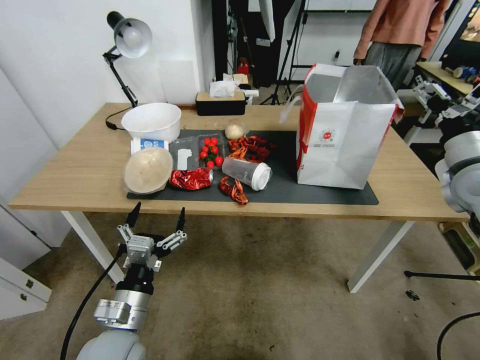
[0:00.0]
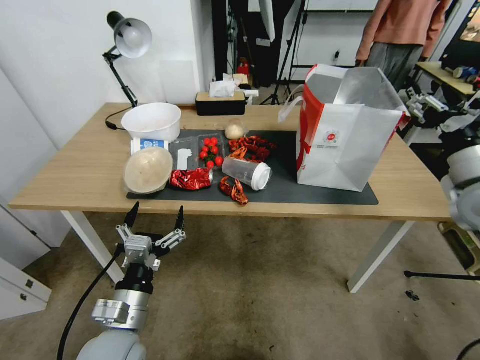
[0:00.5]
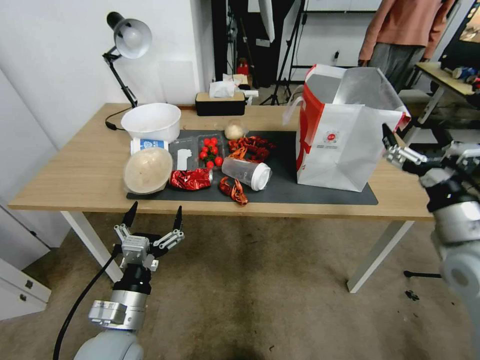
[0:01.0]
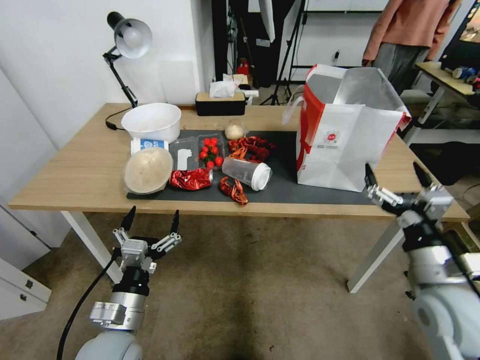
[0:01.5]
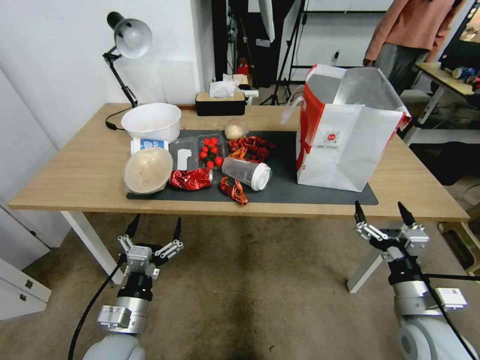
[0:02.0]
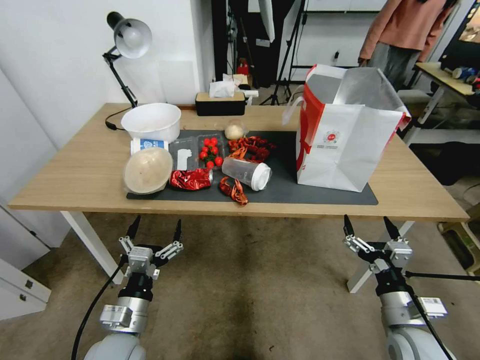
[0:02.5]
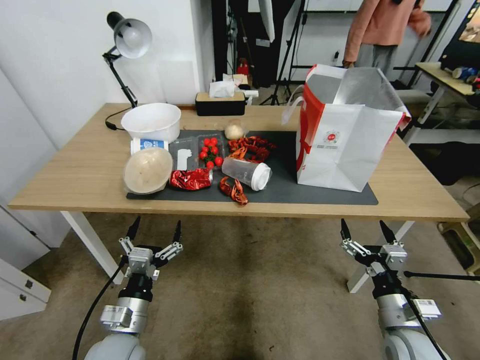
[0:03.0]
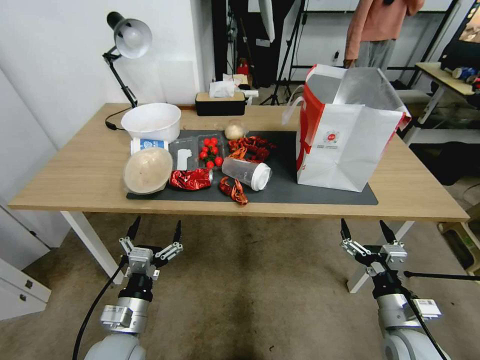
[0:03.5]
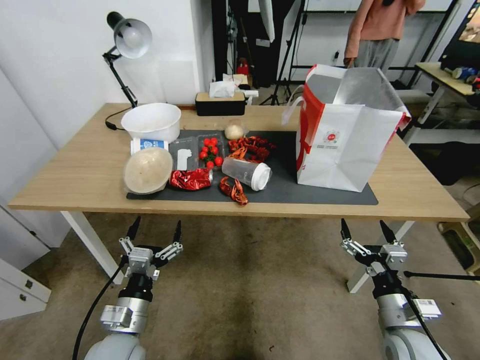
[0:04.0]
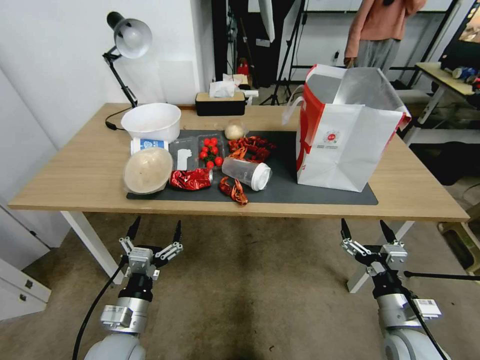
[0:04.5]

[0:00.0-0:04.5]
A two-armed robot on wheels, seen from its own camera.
Task of the whole recording: Pick up the food delivery bag from the floor and place it on the table.
0:00.0 to 0:02.0: The right gripper shifts about 30 cm downward, backward and to the left.
0:02.0 to 0:04.5: There are only small adjustments of the grippers.

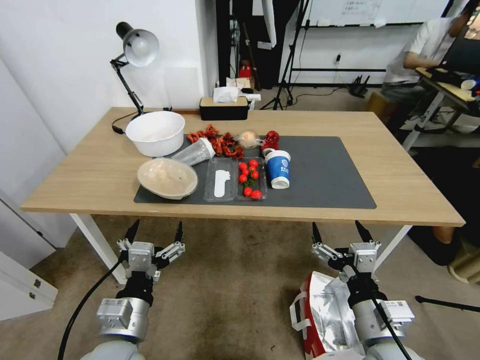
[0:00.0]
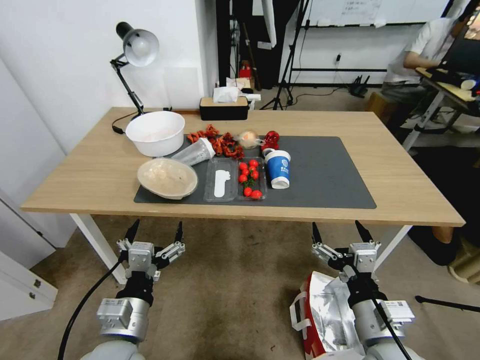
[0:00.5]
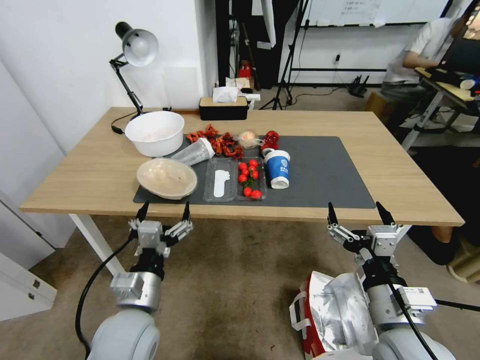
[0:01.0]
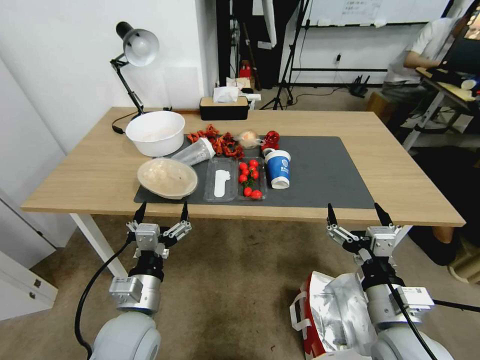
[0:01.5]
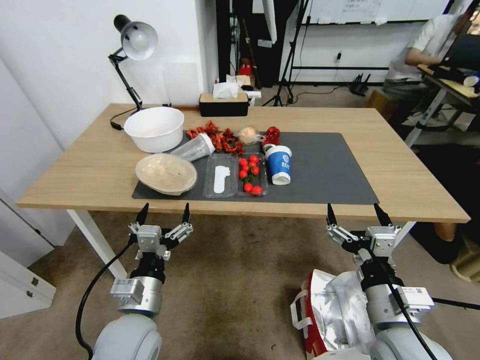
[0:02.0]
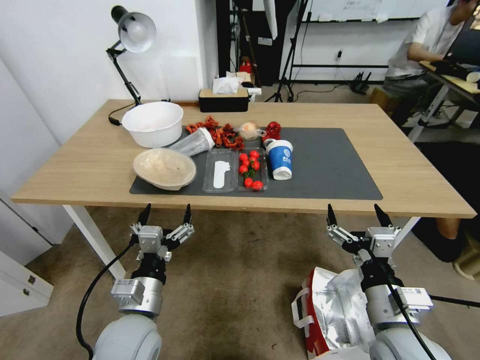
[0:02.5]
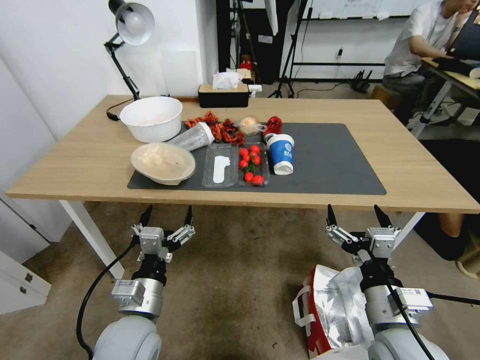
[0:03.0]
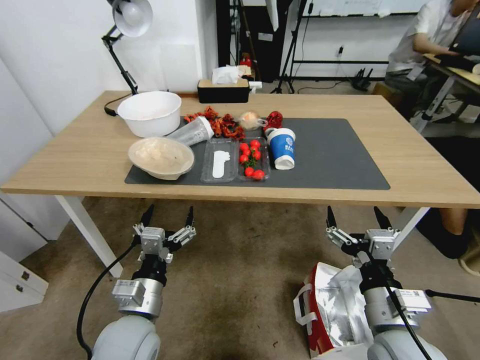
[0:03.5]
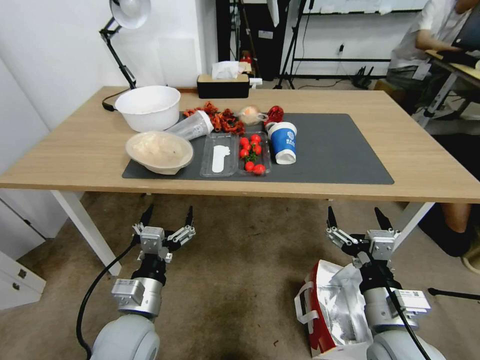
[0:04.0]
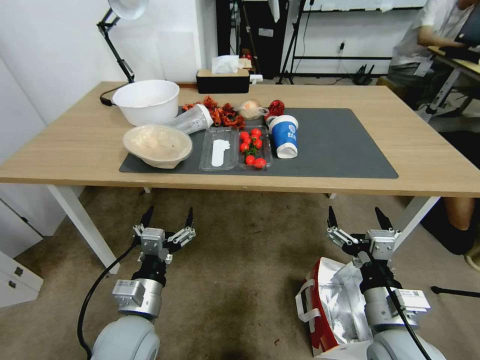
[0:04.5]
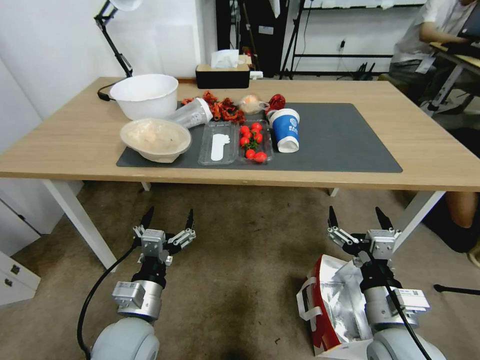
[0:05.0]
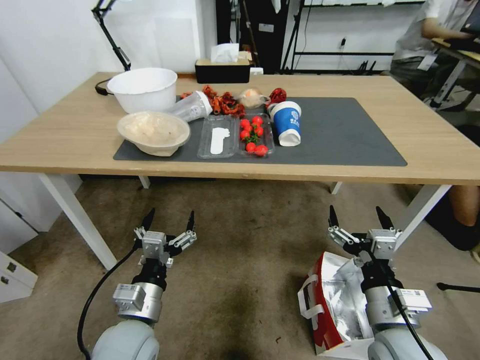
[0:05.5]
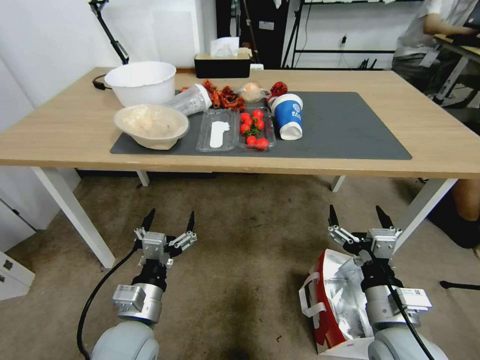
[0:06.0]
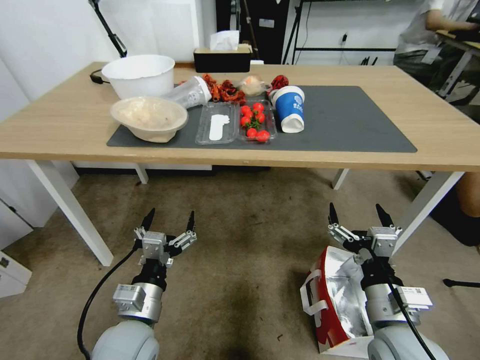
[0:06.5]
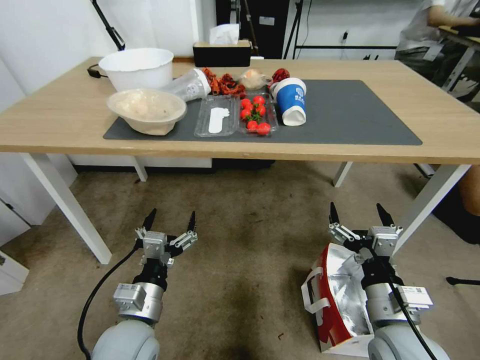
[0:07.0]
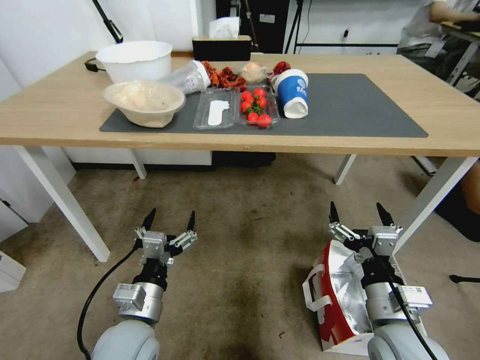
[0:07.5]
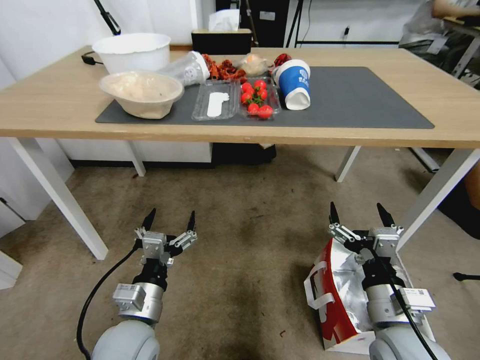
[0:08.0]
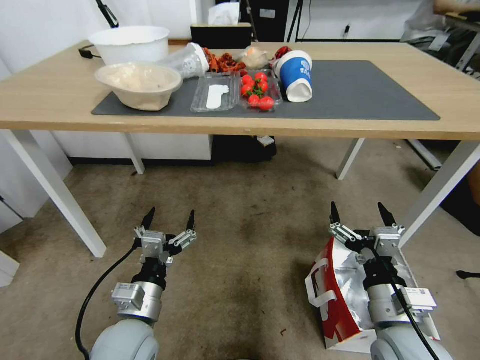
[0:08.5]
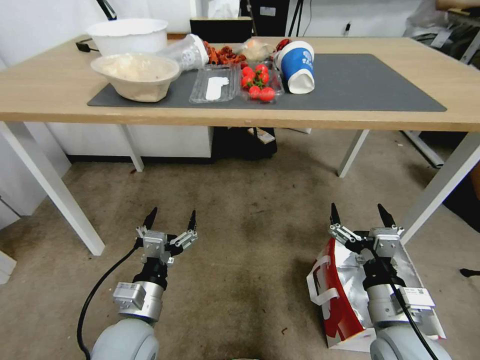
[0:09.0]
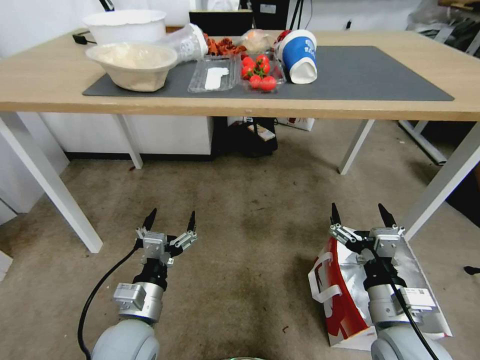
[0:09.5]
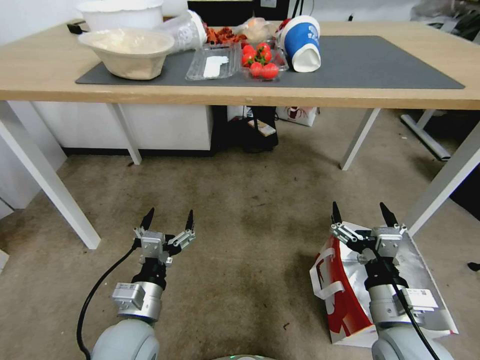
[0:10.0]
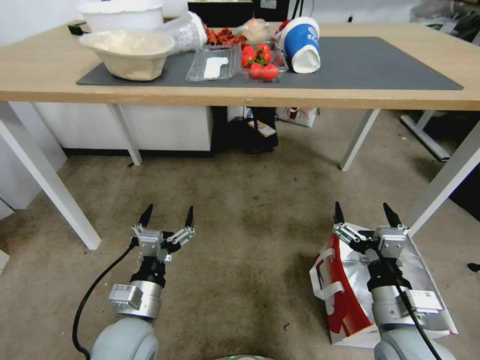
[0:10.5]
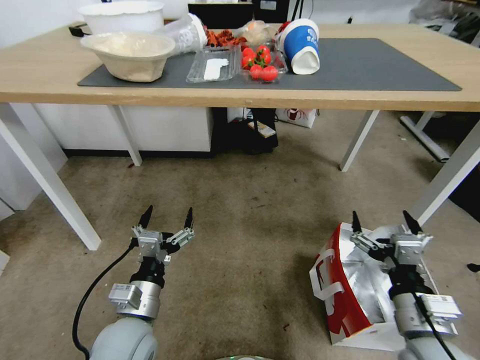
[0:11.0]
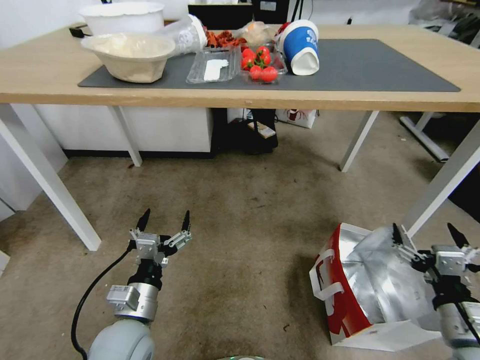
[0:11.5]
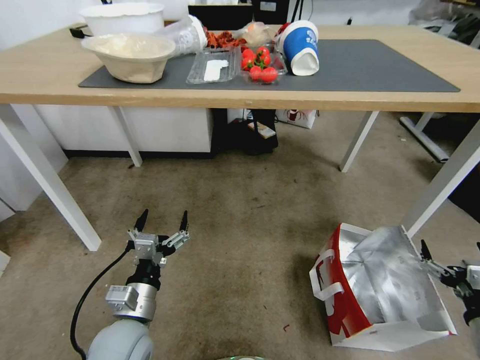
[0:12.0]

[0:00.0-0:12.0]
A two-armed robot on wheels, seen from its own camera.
Task of the whole recording: Pick up the food delivery bag from the floor and place it on the table.
0:10.0 to 0:12.0: The right gripper moves to the right, about 20 cm.

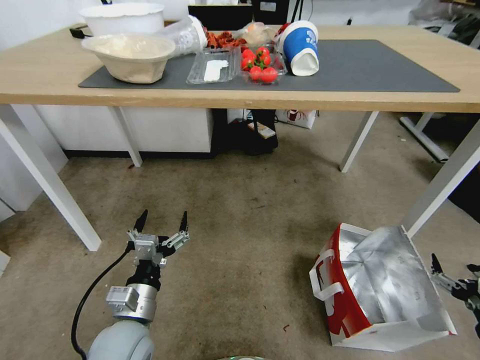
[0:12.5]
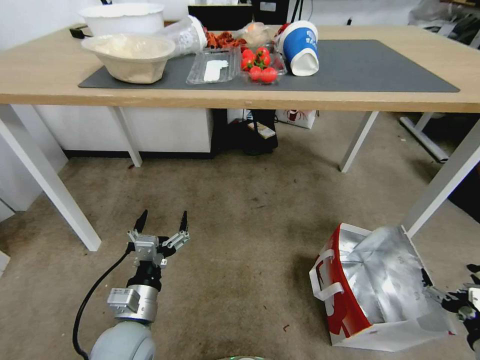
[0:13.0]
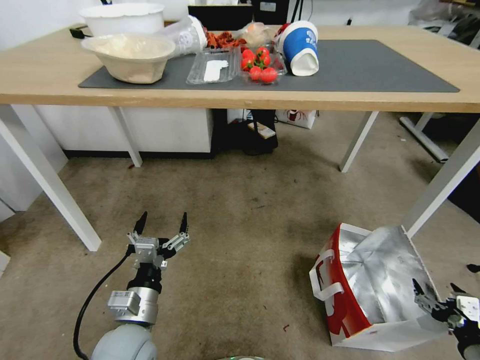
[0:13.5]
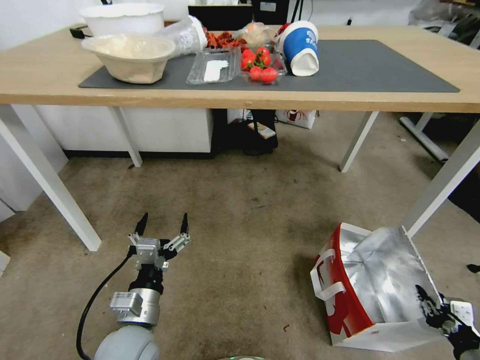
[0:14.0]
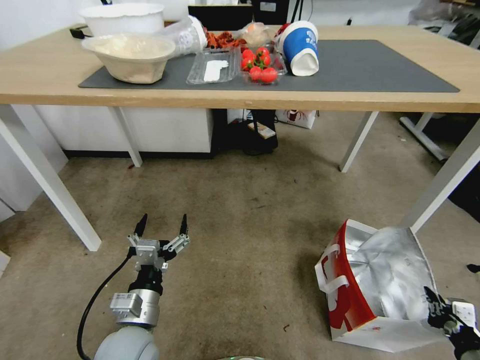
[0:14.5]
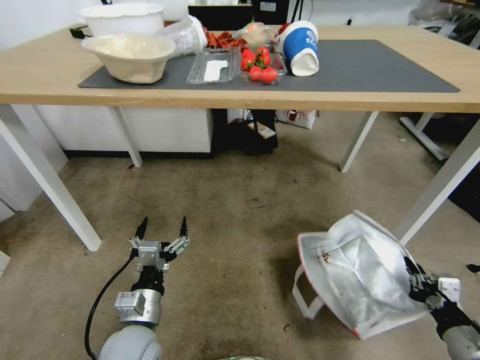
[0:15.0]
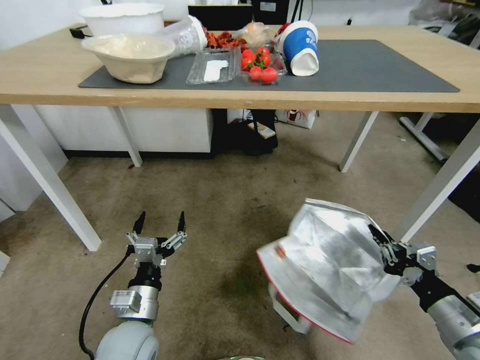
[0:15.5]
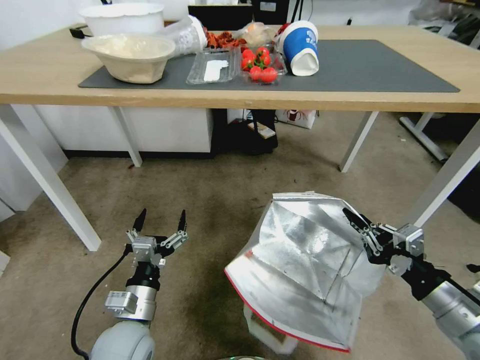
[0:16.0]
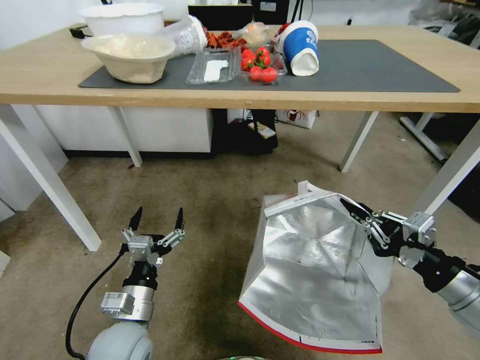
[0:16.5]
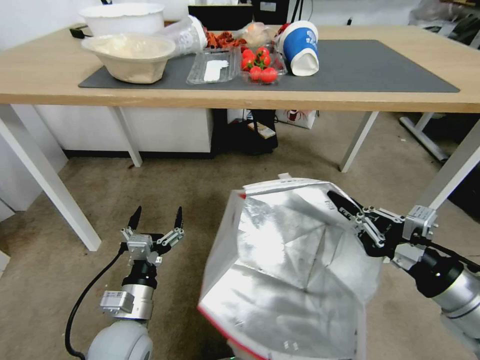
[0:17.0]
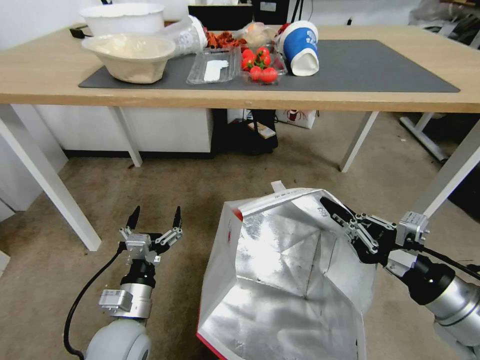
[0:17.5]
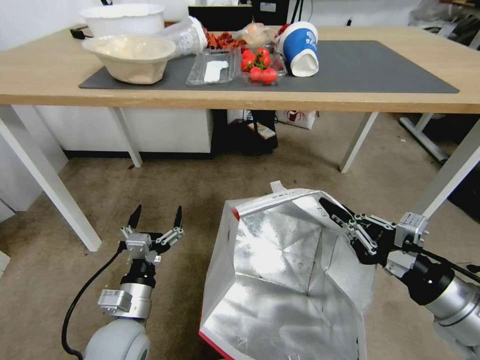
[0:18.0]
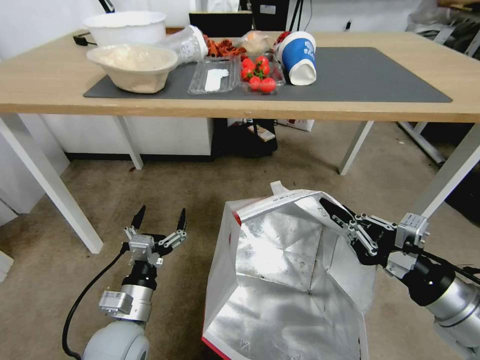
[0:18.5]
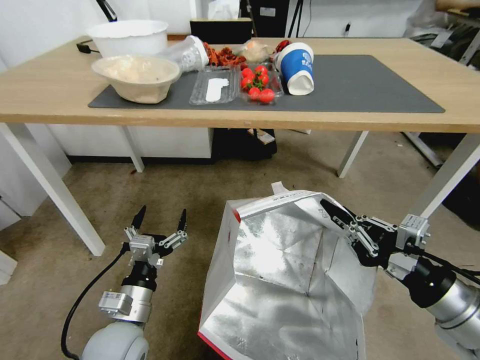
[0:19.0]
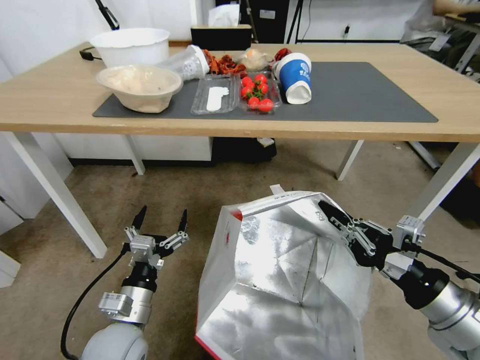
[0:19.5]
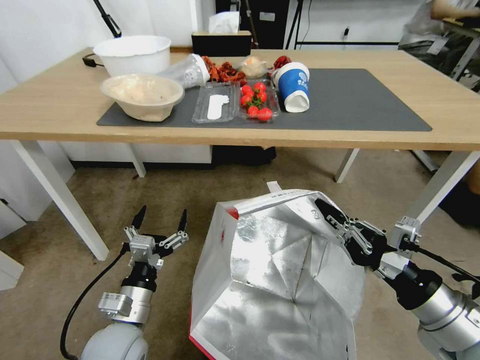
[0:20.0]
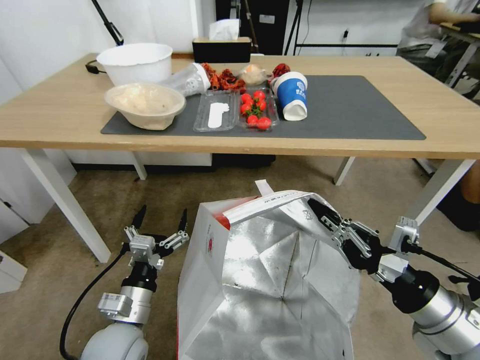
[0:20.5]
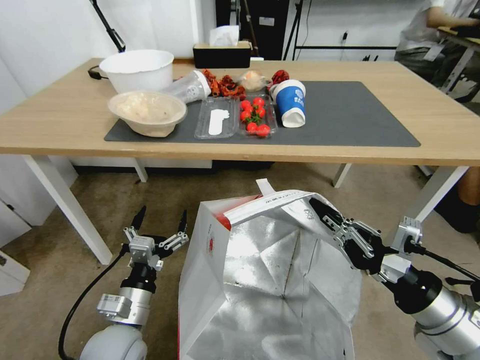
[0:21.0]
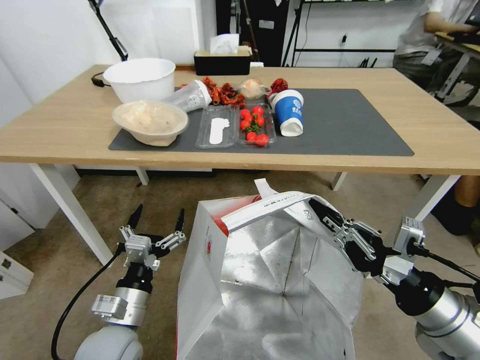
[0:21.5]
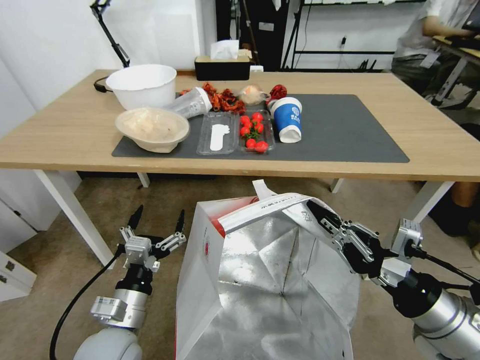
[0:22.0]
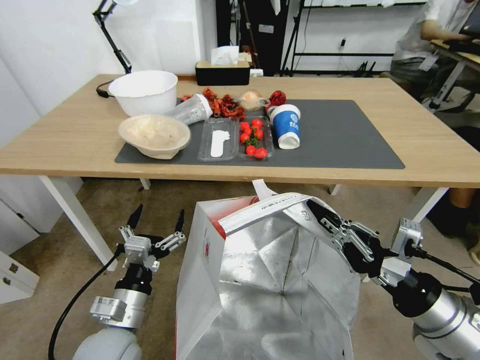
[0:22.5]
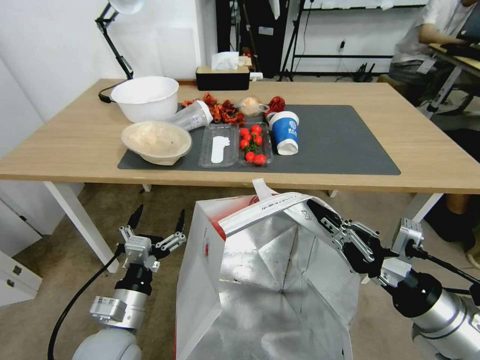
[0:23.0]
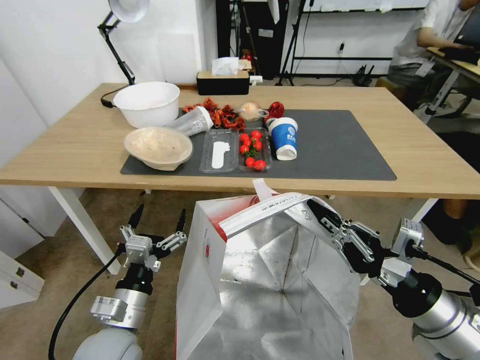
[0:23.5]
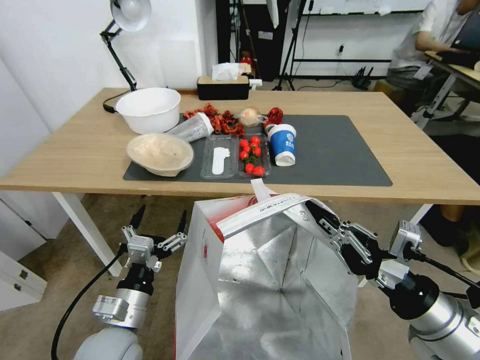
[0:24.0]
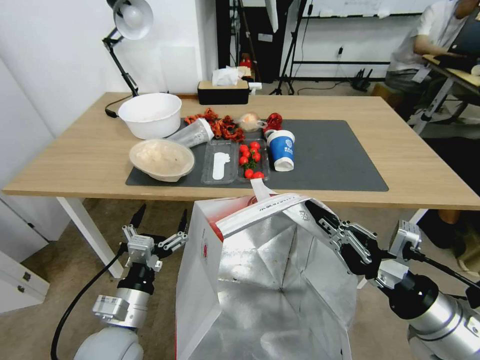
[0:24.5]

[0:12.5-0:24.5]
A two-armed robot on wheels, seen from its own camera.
Task of the whole recording: Pick up the food delivery bag from the floor and place it on the table.
0:12.5 to 0:14.5: The right gripper travels downward by some 5 cm, and closes its fingers.
0:14.5 to 0:16.5: The right gripper shifts some 20 cm upward and to the left.
